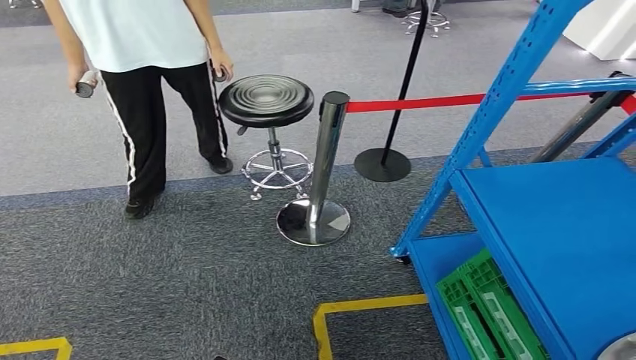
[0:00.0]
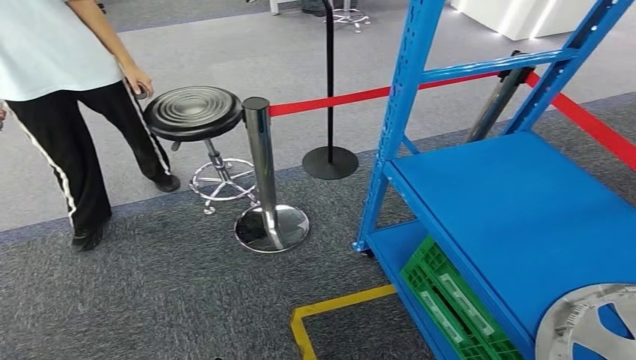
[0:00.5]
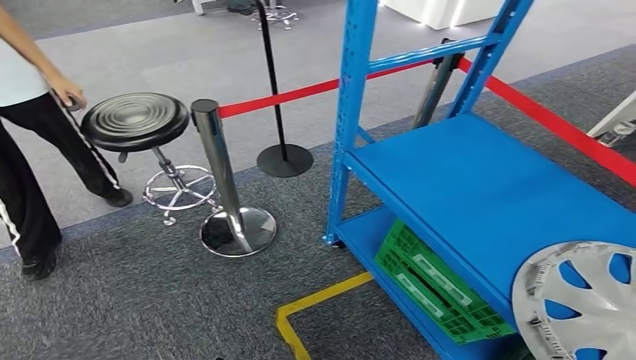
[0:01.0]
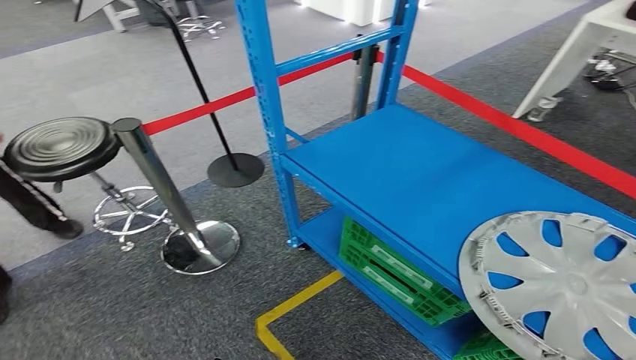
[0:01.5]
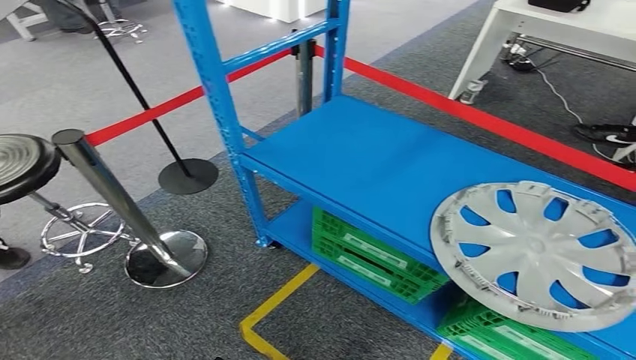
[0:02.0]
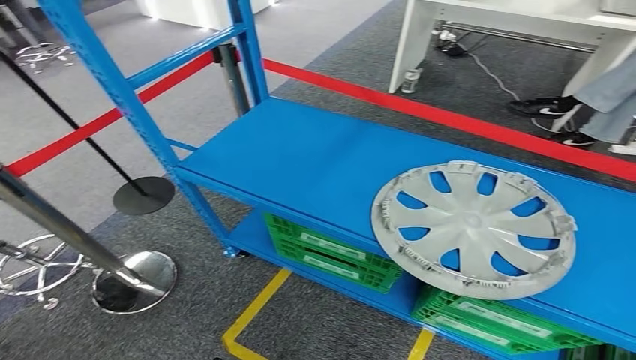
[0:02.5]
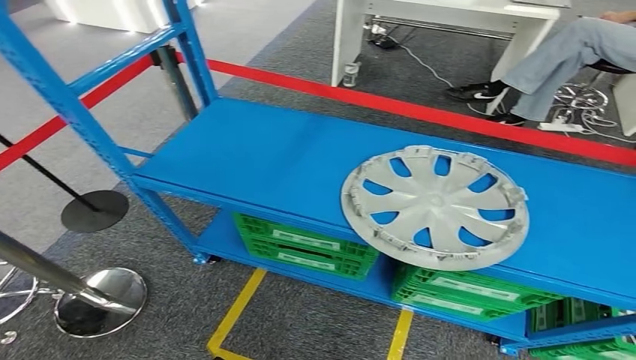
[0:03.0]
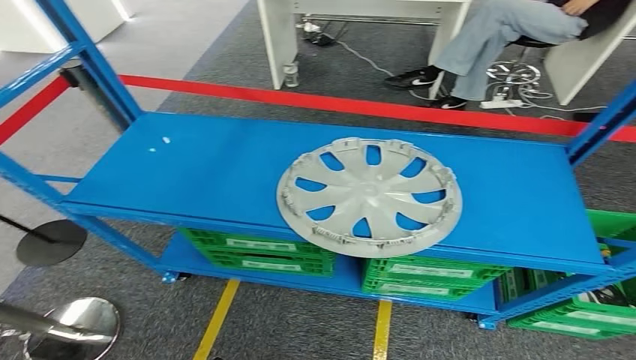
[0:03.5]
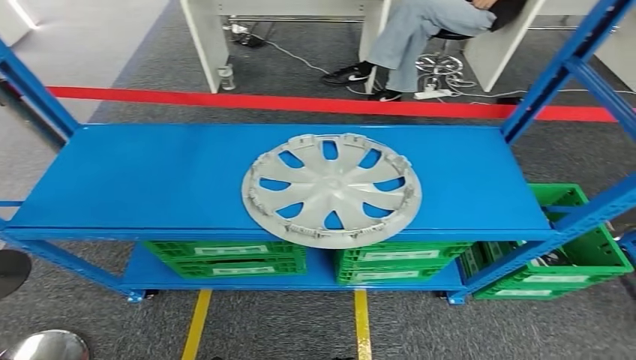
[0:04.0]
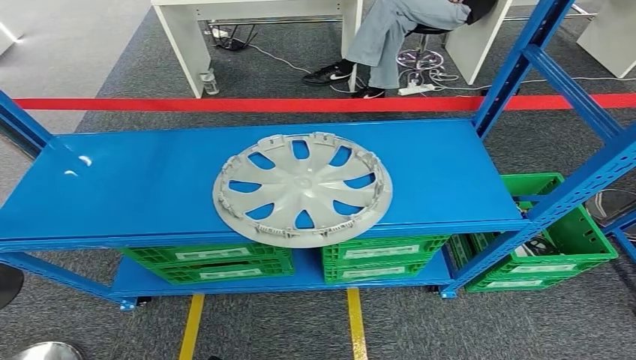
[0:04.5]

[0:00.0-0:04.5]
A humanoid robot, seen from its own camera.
Step, 0:00.0 to 0:04.5: Return to the initial position at the workbench.
